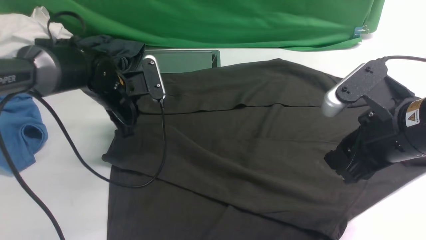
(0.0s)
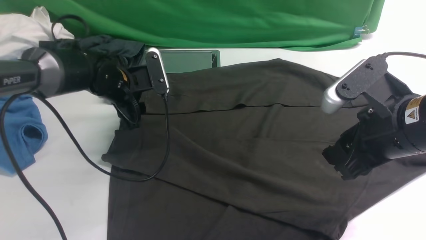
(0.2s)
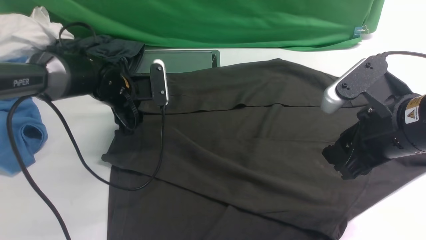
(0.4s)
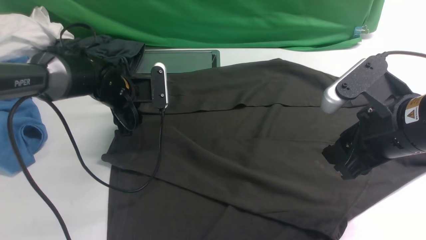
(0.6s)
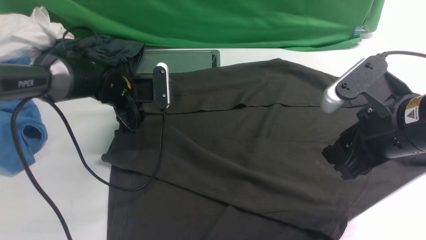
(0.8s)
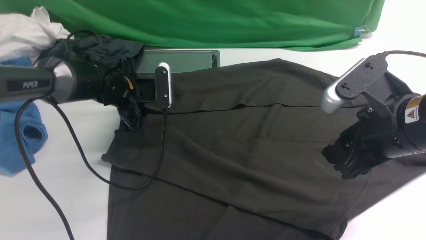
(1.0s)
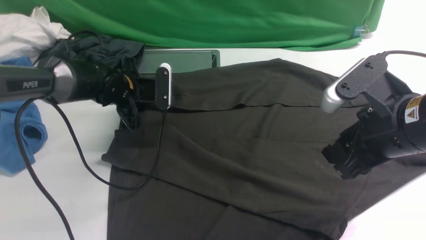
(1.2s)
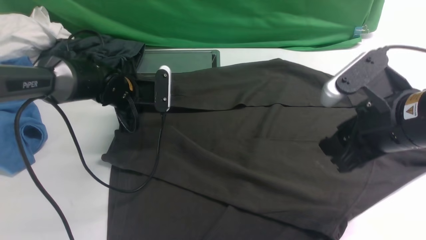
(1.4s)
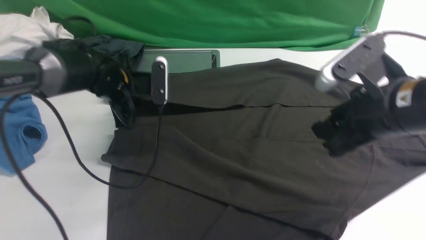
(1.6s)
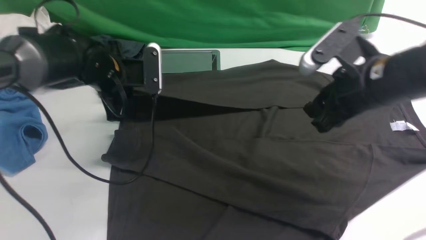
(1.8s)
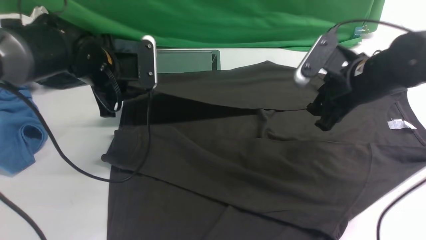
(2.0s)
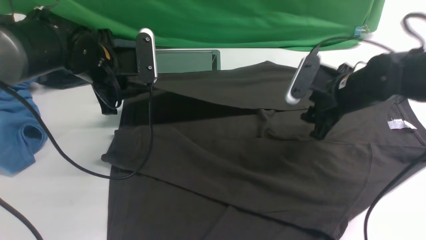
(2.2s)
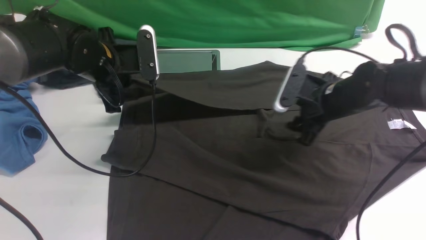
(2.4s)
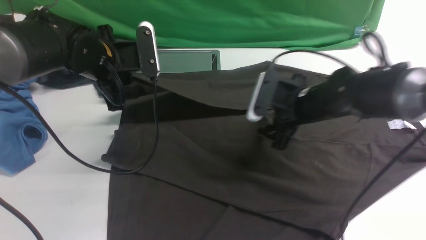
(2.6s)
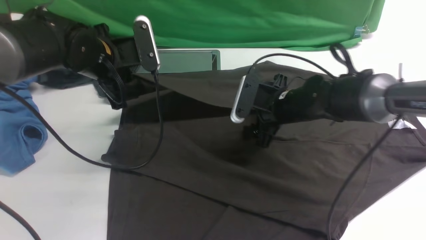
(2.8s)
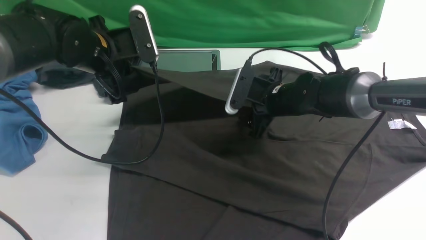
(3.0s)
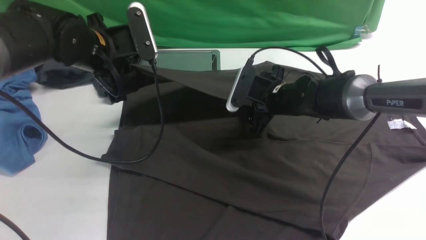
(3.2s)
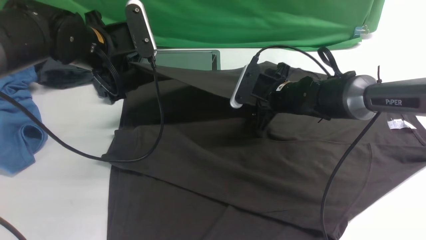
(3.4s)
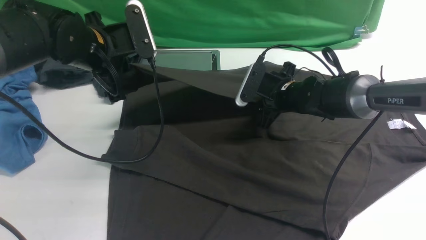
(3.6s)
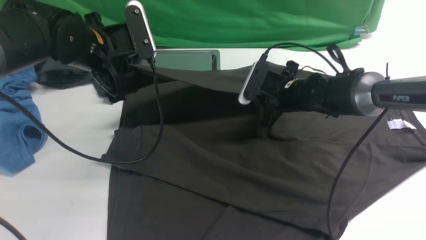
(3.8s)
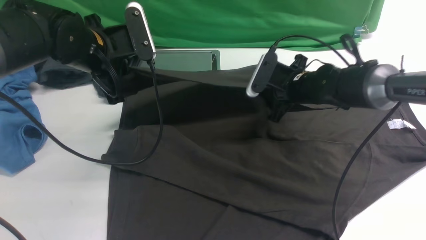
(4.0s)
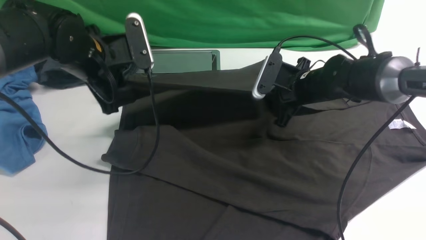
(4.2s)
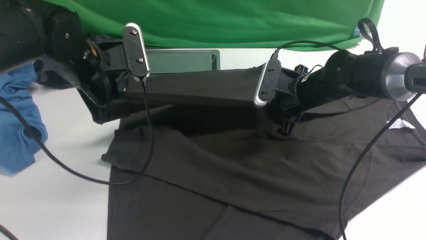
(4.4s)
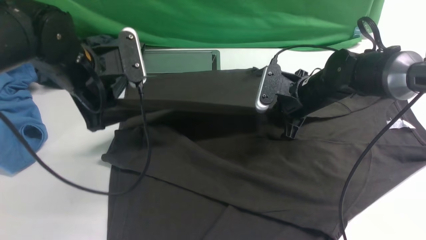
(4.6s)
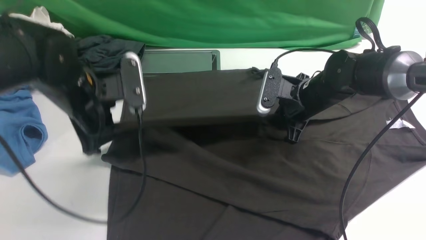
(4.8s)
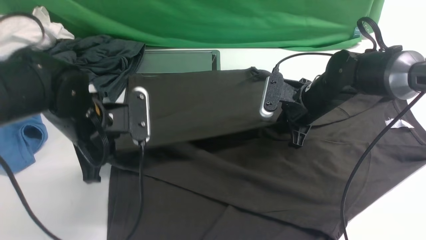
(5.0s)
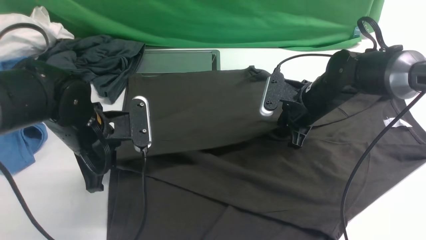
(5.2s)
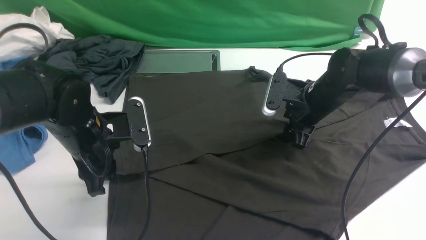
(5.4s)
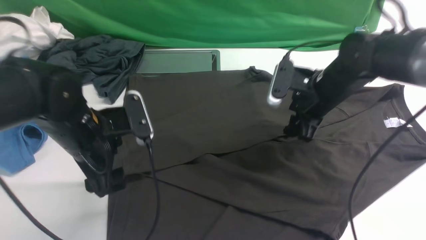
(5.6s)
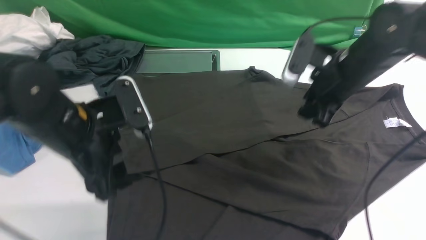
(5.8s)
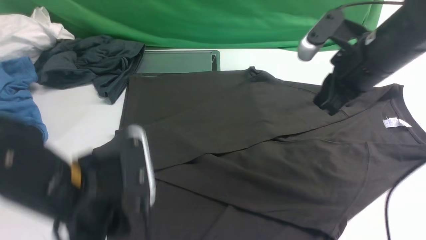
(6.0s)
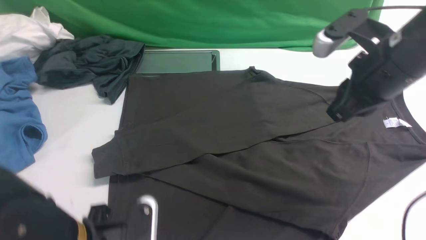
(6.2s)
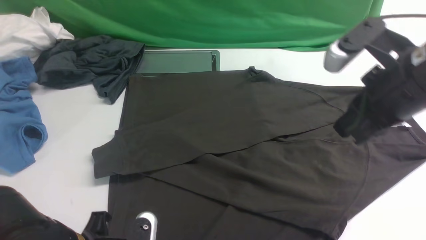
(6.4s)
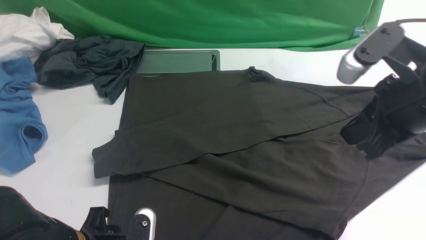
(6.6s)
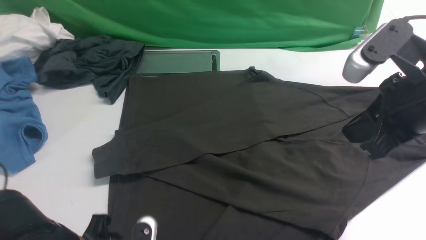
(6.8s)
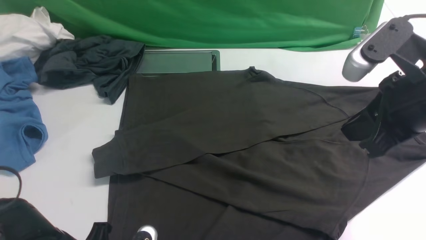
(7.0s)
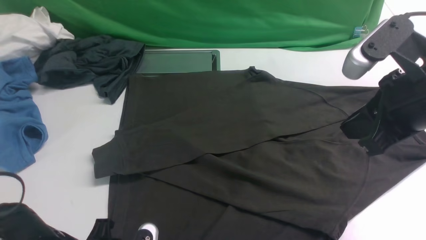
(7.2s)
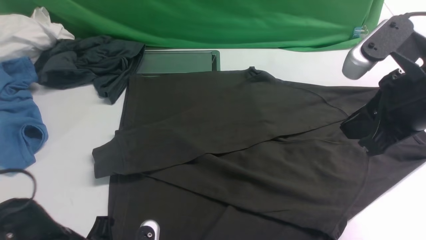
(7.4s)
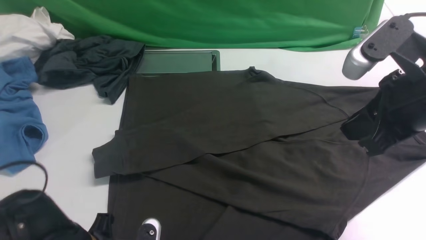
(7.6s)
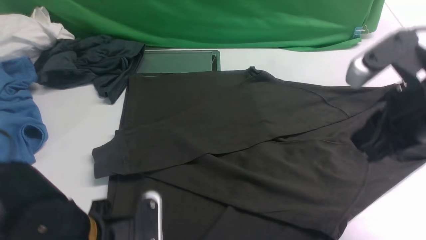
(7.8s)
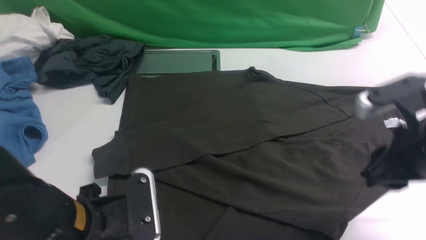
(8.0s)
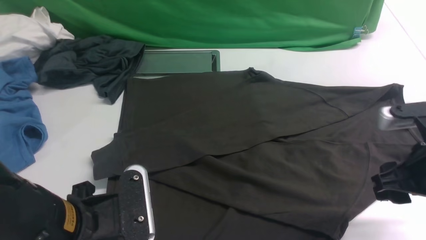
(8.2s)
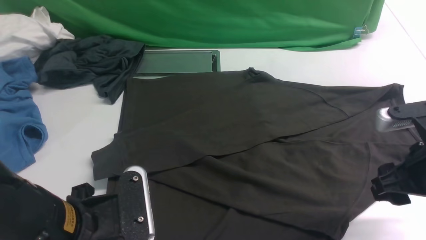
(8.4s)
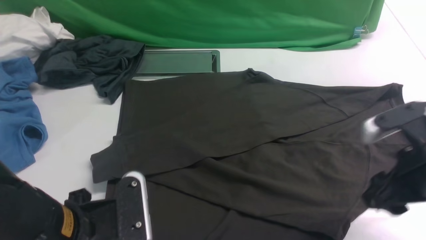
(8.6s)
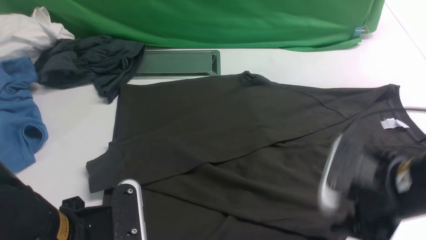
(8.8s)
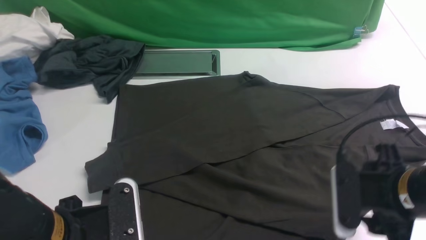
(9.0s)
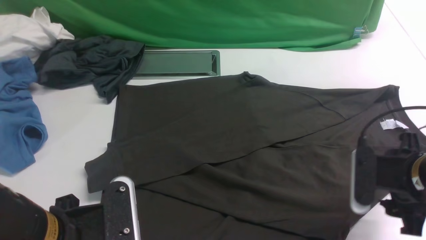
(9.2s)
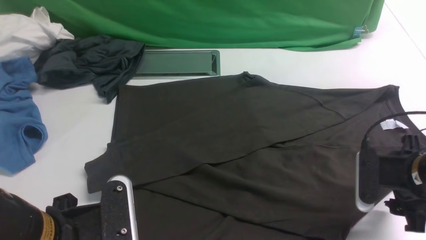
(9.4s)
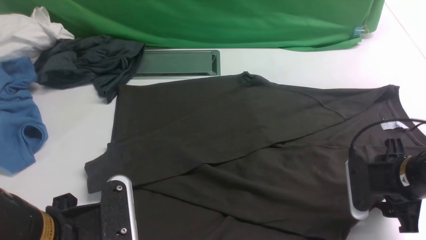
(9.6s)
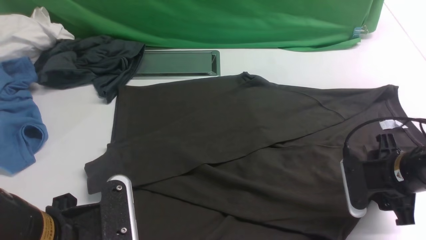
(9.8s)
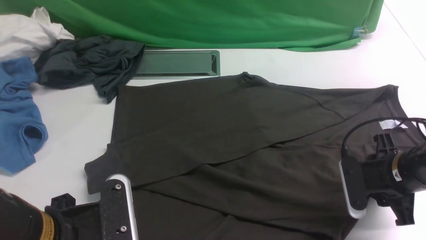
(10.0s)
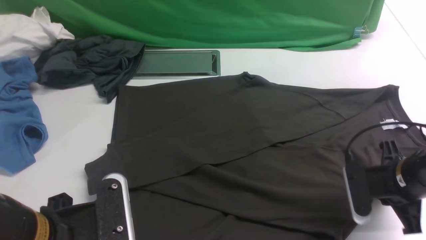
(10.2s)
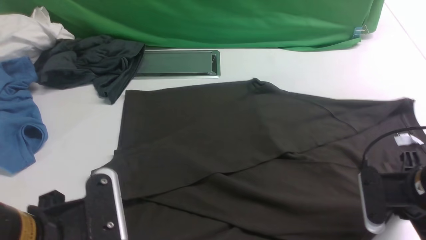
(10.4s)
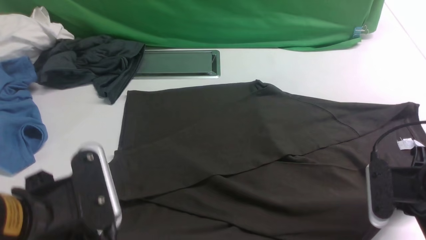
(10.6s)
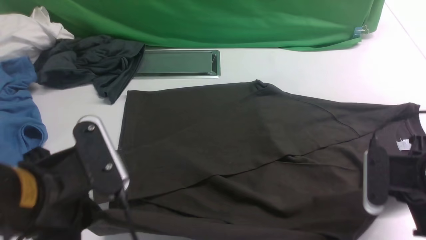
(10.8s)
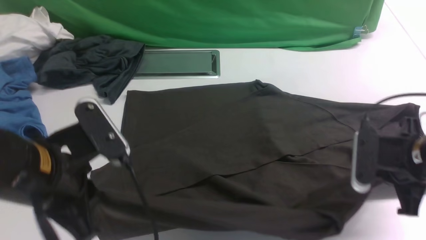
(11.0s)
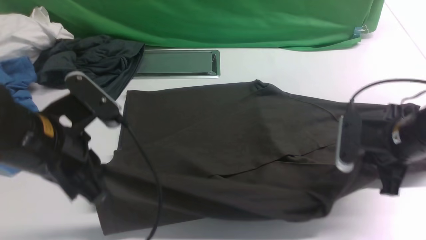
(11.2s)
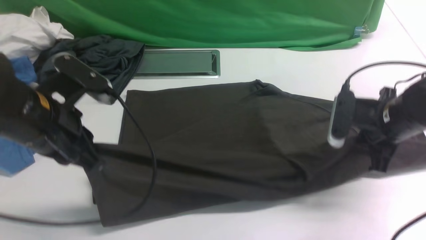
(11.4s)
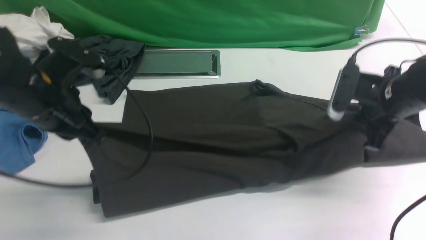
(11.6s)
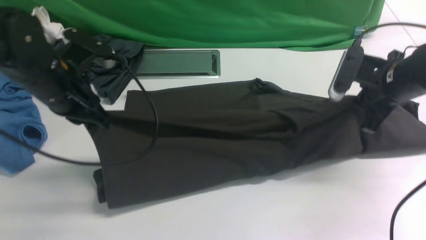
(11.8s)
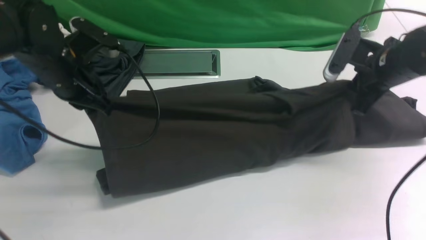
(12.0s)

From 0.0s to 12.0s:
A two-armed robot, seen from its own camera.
Step, from 0.0s to 1.4s: use the left arm to clamp the cuff farthest from it.
Step, from 1.6s to 5.6s: use the left arm to drag and drop the cuff onto the cuff closest to the left arm.
Step, from 5.8s to 10.8s: use both arms simultaneously to clamp the lower edge of the clothing fabric.
From 0.0s to 1.6s: The left gripper closes its fingers.
From 1.6s to 3.0s: The left gripper goes about 5 cm upward. The right gripper goes some 20 cm forward, downward and to the left, and opens.
From 3.0s to 4.4s: The right gripper ends up some 5 cm from where it was, and closes its fingers.
From 4.4s to 6.0s: The left gripper travels backward by some 20 cm, and opens, then closes once more; the right gripper goes approximately 15 cm upward and backward, and opens, then closes once more.
From 6.0s to 7.6s: The left gripper travels downward by approximately 5 cm, and opens, then closes again. Meanwhile the right gripper goes roughly 10 cm backward.
From 7.6s to 9.0s: The left gripper moves upward, approximately 10 cm. The right gripper goes about 10 cm downward, and opens its fingers.
From 9.0s to 10.4s: The right gripper ends up some 5 cm from where it was, and closes its fingers.
From 10.4s to 12.0s: Both grippers move forward, some 20 cm.

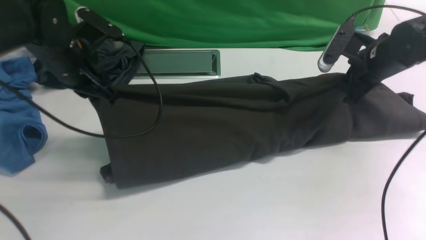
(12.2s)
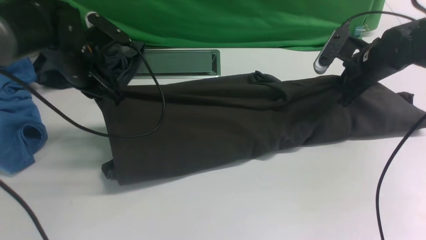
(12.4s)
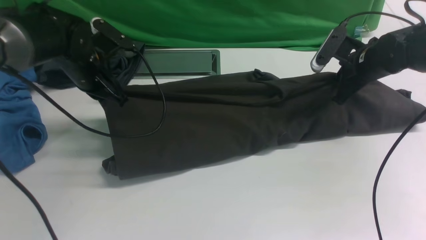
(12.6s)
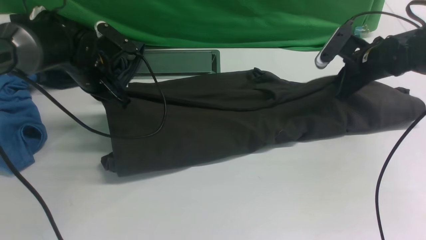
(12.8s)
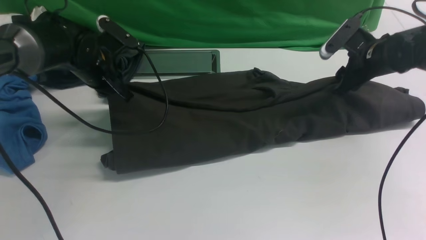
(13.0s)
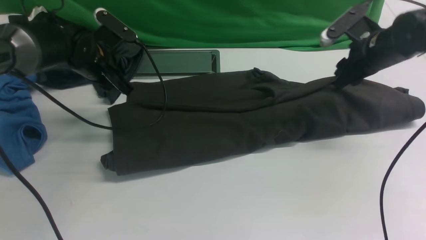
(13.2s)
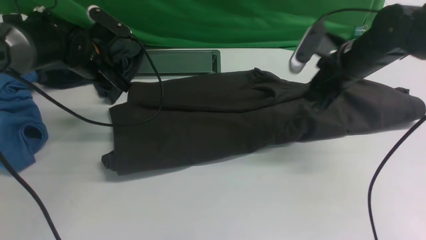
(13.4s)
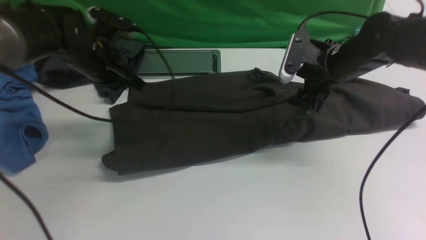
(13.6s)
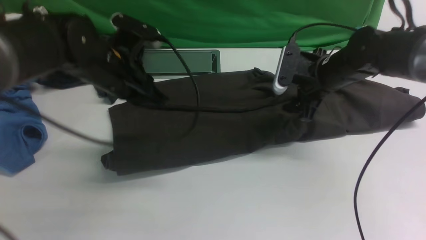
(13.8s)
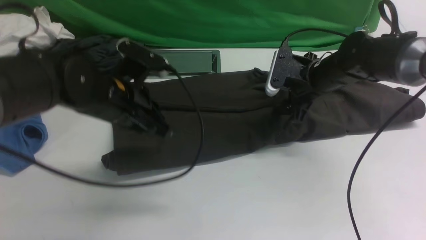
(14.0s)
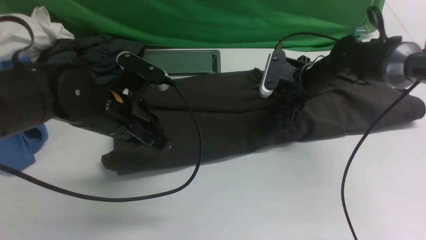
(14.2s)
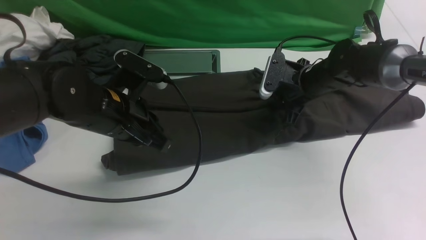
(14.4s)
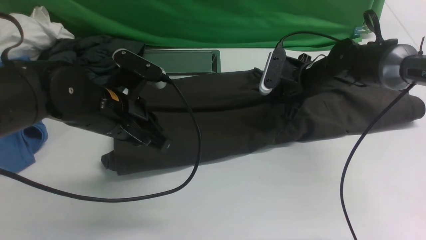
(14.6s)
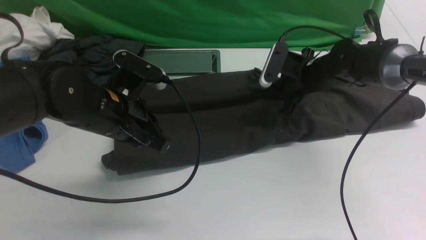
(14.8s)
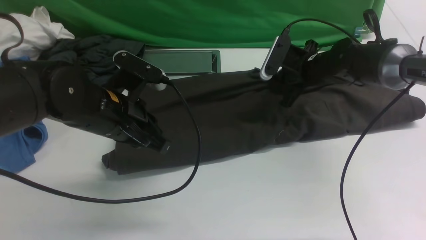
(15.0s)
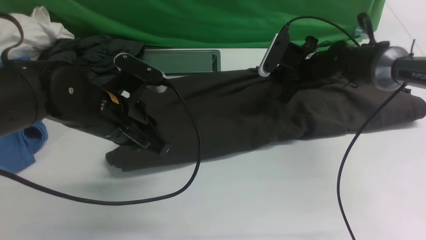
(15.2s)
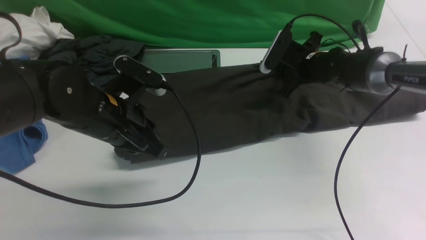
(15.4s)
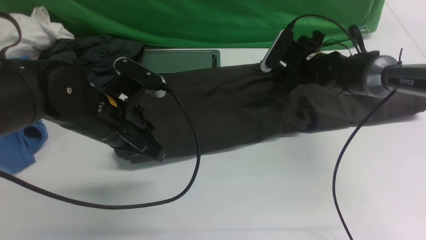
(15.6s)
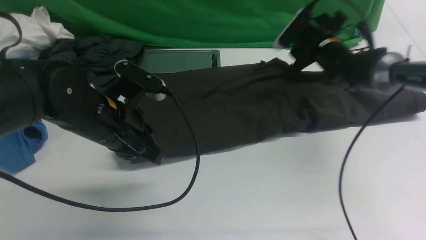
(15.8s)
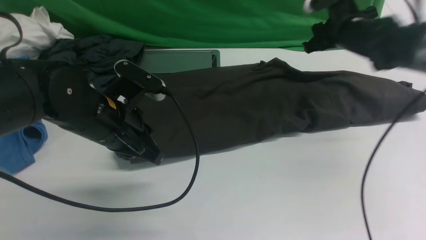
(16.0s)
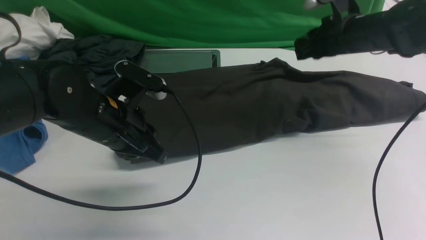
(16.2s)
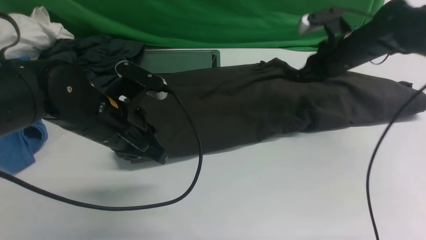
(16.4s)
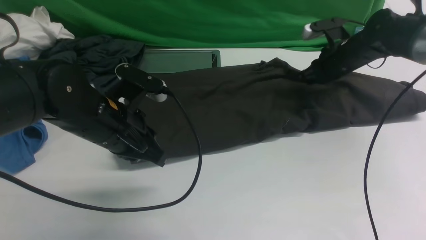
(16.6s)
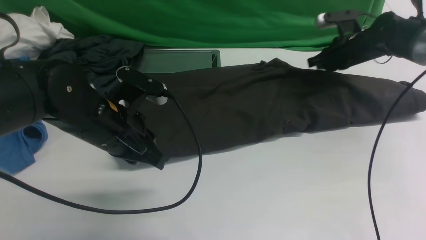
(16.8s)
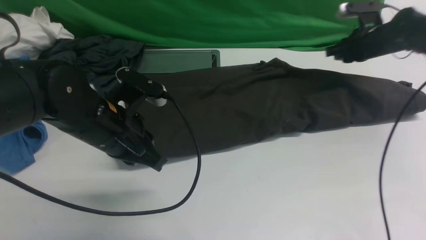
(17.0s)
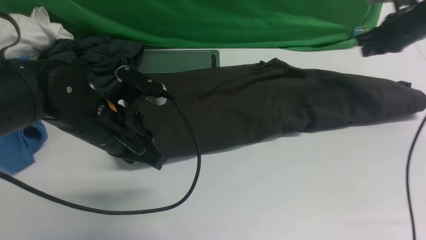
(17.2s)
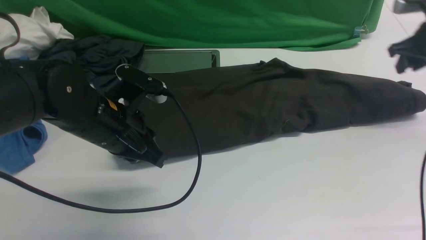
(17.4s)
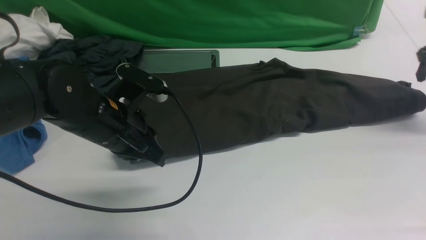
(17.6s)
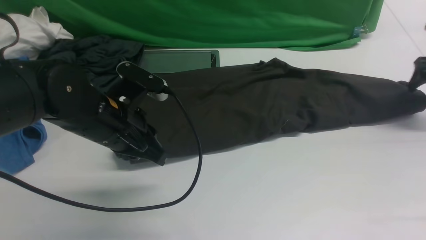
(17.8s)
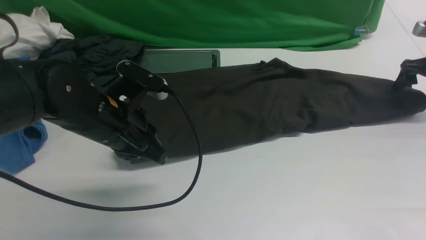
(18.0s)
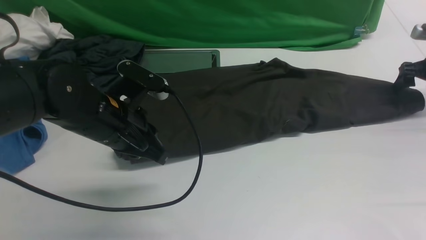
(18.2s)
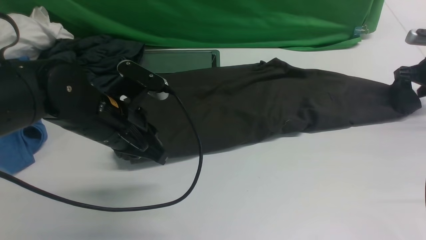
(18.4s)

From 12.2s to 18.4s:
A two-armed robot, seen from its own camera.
Step, from 12.2s to 16.8s: use both arms to drag the lower edge of the fabric forward and fold it over the upper edge.
From 12.2s to 13.8s: The right gripper shifts about 10 cm to the left, and opens up. The left gripper moves to the right, roughly 5 cm, reaches about 5 cm forward, then returns, and opens and closes again.
From 13.8s to 15.4s: The left gripper heads backward, covering approximately 5 cm; the right gripper heads forward, covering some 5 cm, and closes.
From 15.4s to 16.8s: The right gripper travels to the right by about 10 cm, and closes.
From 16.8s to 18.4s: The right gripper shifts roughly 15 cm to the right, and opens.
